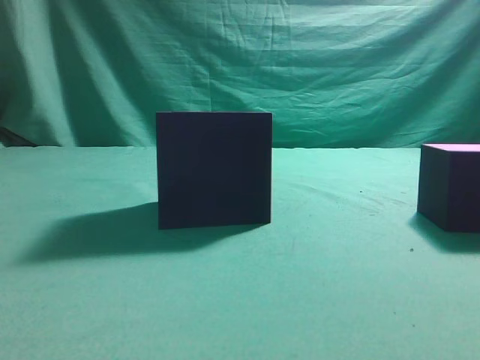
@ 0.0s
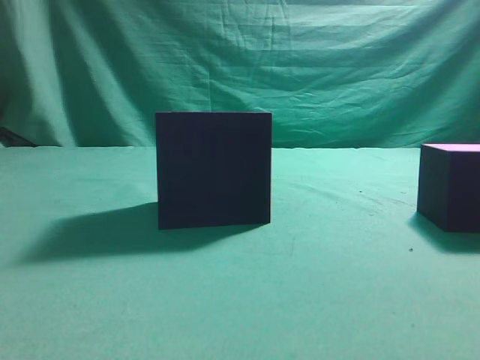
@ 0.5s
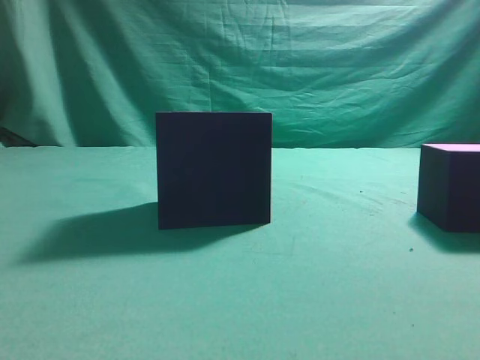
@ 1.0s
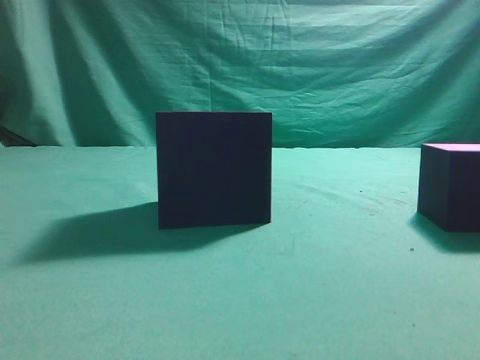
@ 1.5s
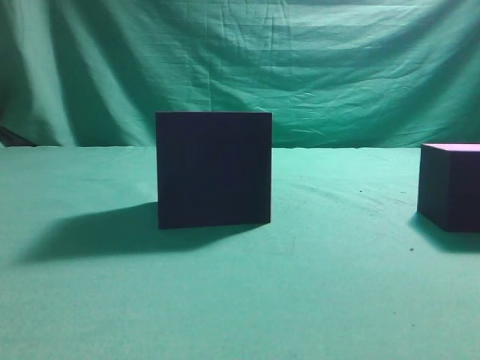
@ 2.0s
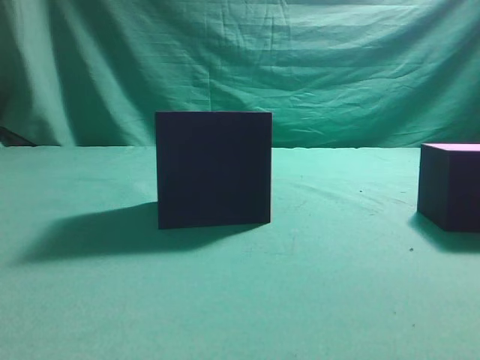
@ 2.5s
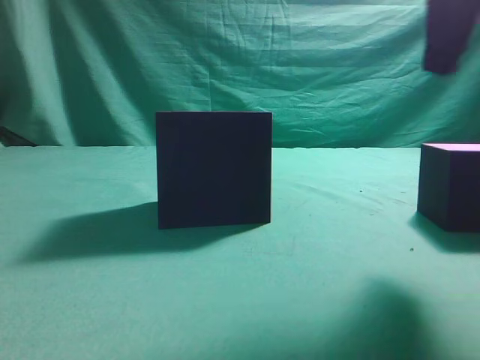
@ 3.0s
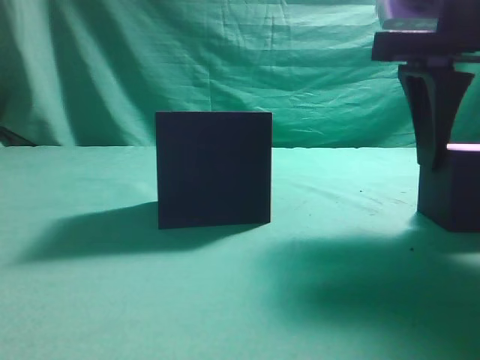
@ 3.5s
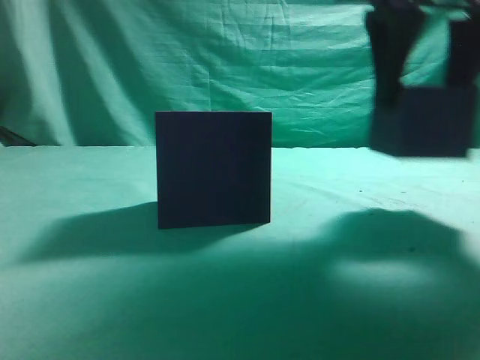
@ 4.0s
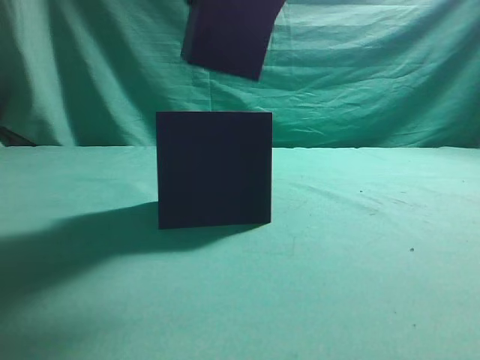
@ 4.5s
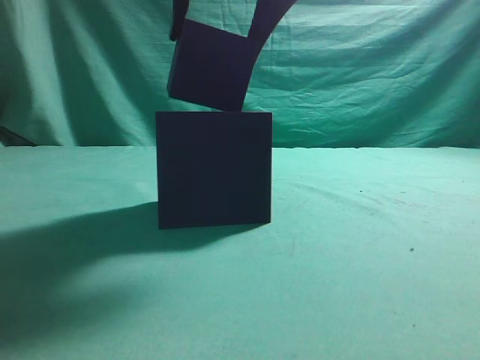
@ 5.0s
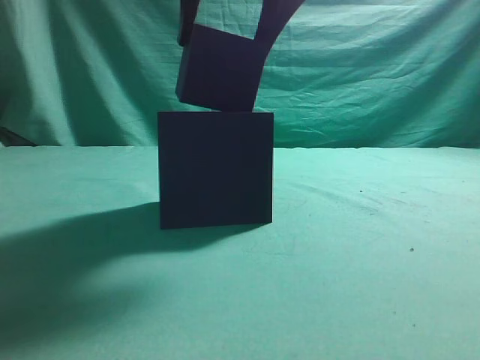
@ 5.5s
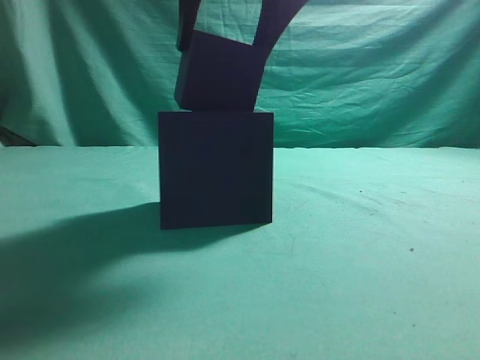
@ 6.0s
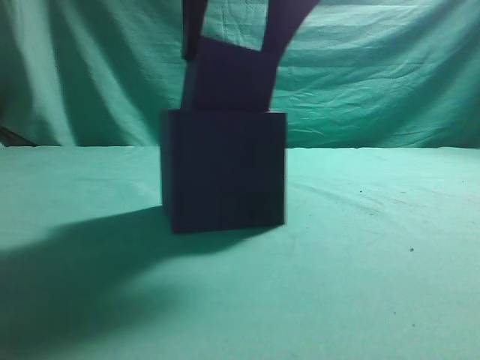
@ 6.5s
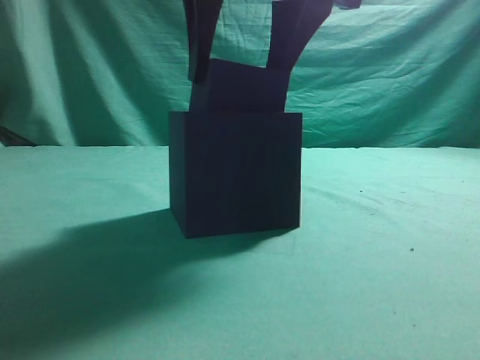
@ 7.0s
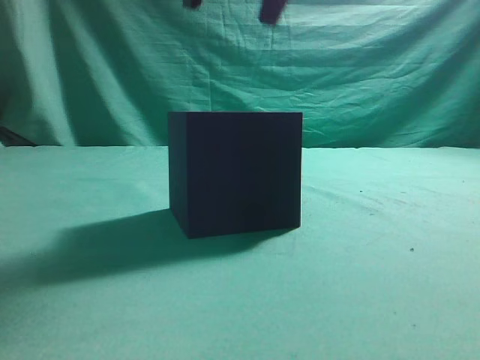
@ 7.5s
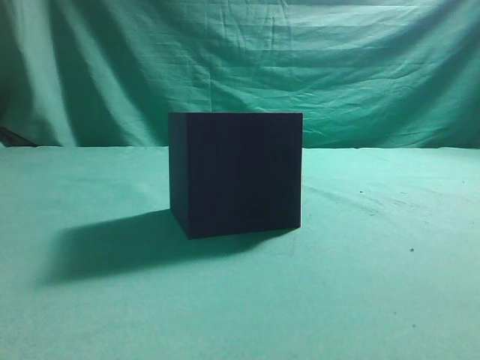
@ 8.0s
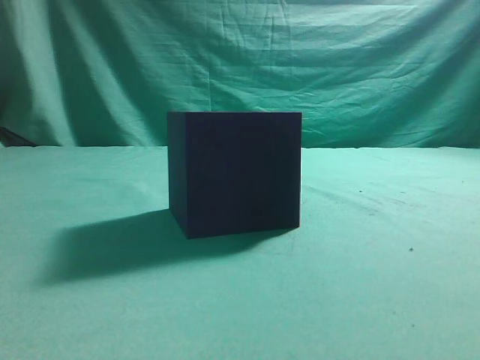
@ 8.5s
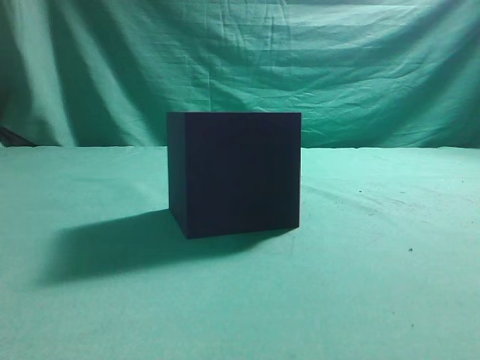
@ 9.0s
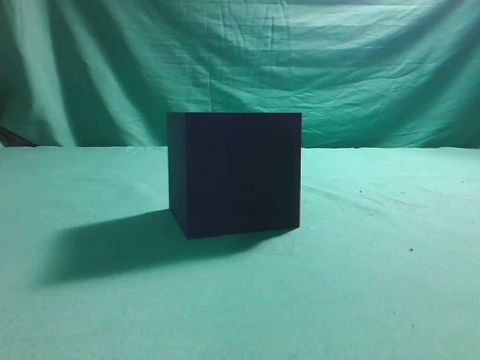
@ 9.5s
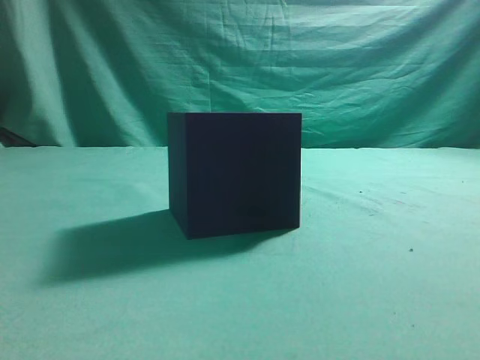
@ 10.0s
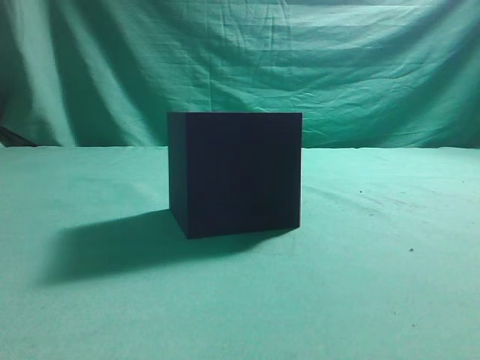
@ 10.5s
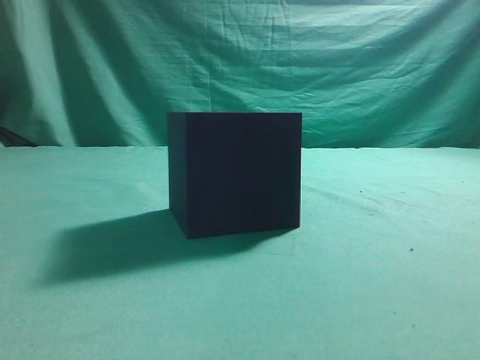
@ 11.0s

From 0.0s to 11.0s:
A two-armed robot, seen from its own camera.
Task of the whole recording: pick up the cube block and place it into the cube groove.
Step, from 0.0s to 3.5s: Grasp the cube.
Step, from 4.0s to 7.0s: Place cube into the cube-shaped recess.
From 2.0s to 3.5s: The right gripper shifts about 20 cm forward, to the left and downward, and opens.
From 3.5s to 5.5s: The right gripper heads to the left and upward, covering about 15 cm.
From 5.5s to 7.5s: The grippers stay close to where they were, moving slightly.
From 7.5s to 9.0s: The right gripper is displaced backward and to the right by approximately 35 cm, and closes its fingers.
